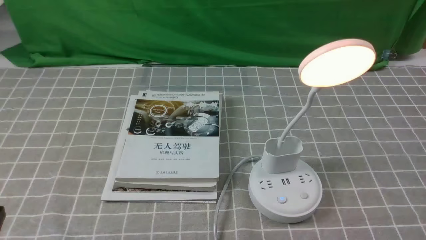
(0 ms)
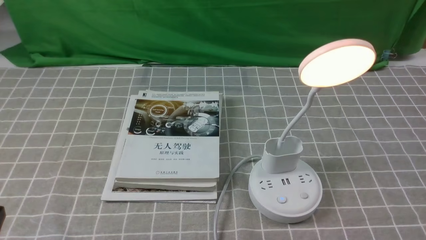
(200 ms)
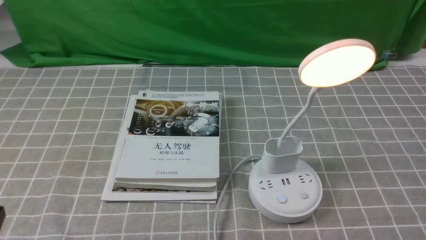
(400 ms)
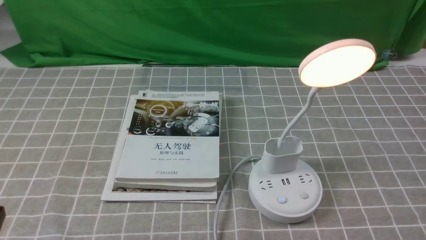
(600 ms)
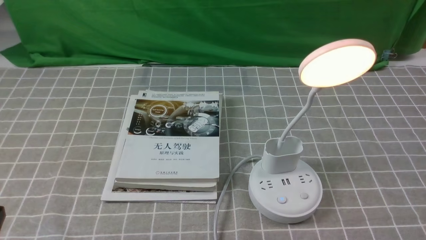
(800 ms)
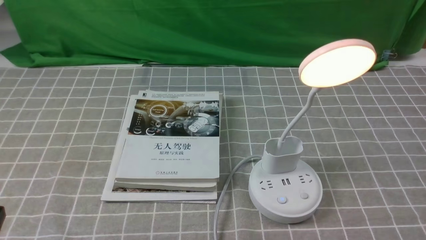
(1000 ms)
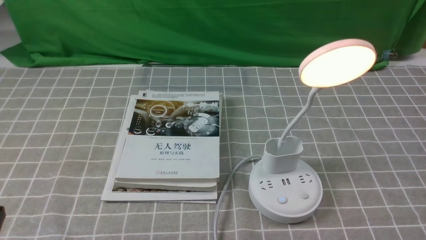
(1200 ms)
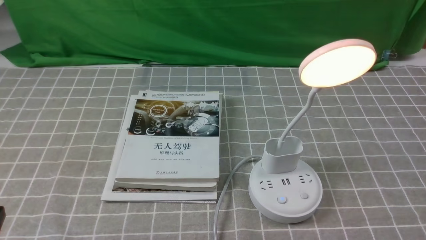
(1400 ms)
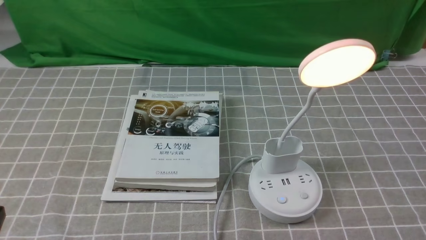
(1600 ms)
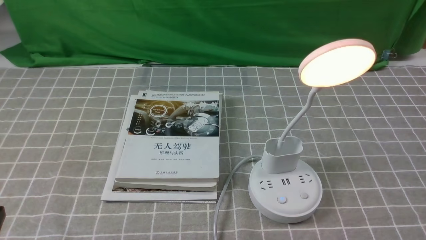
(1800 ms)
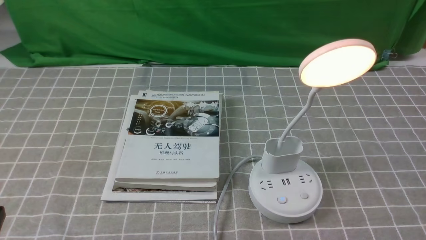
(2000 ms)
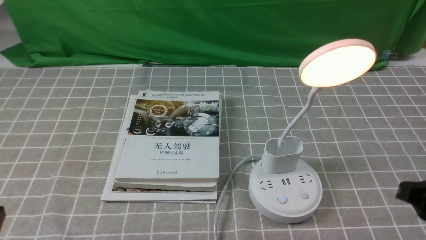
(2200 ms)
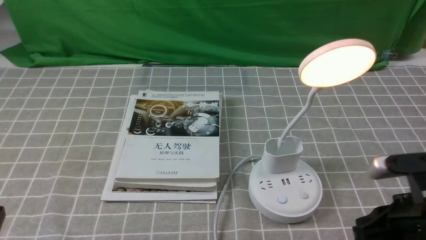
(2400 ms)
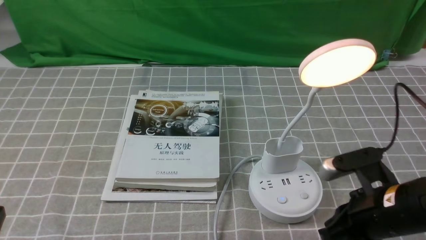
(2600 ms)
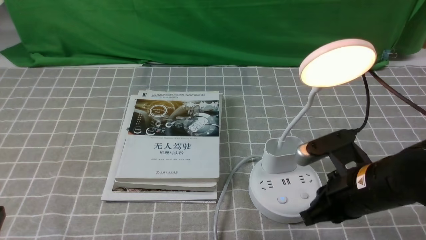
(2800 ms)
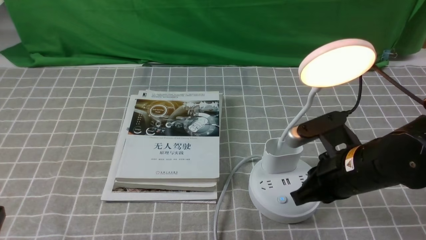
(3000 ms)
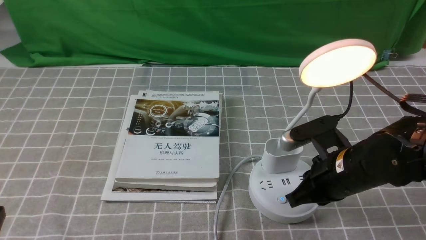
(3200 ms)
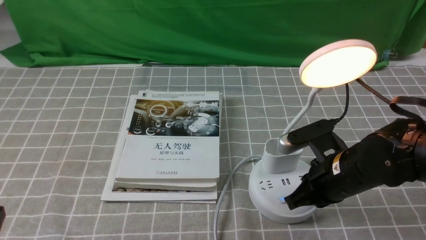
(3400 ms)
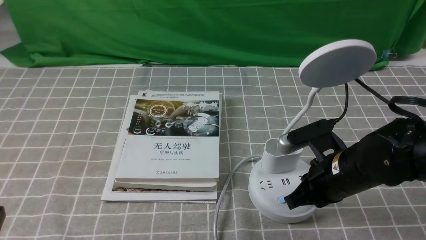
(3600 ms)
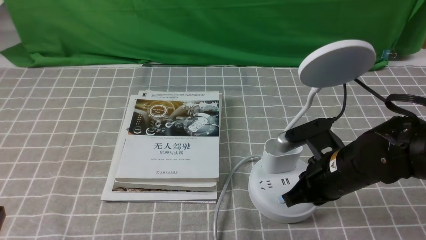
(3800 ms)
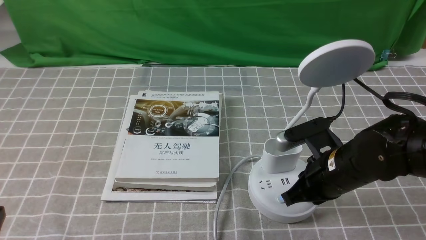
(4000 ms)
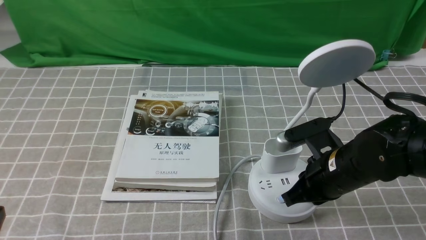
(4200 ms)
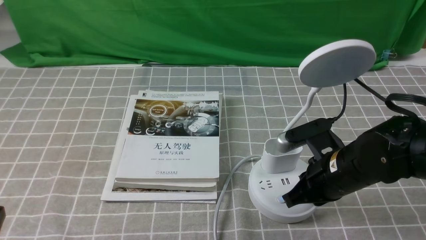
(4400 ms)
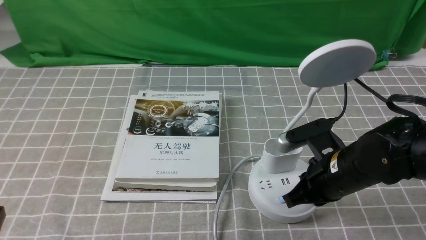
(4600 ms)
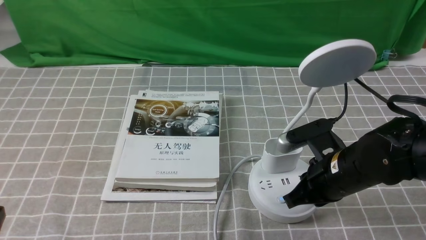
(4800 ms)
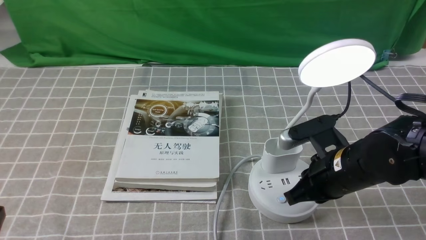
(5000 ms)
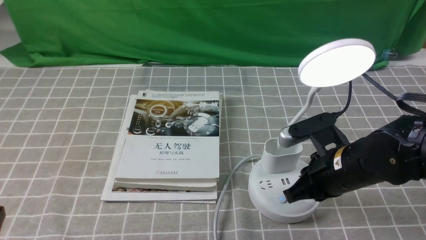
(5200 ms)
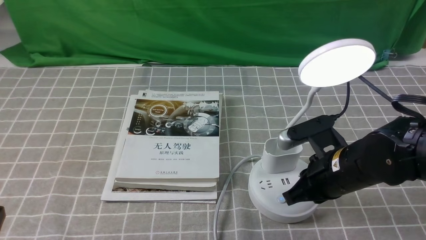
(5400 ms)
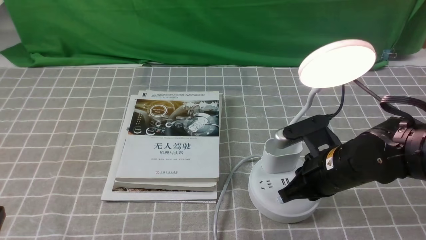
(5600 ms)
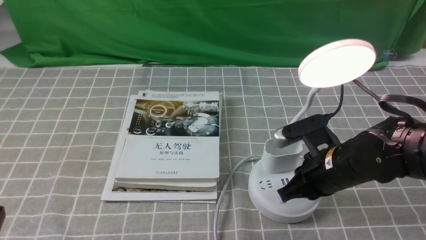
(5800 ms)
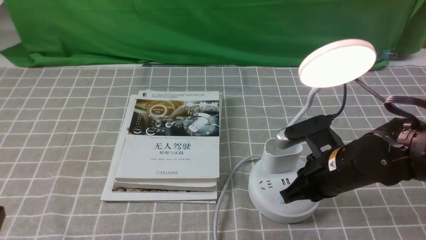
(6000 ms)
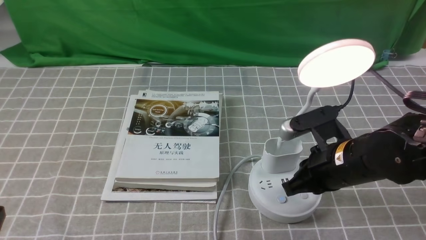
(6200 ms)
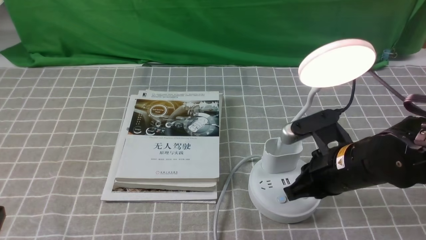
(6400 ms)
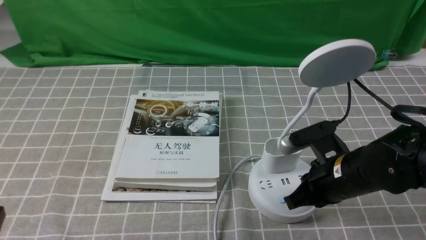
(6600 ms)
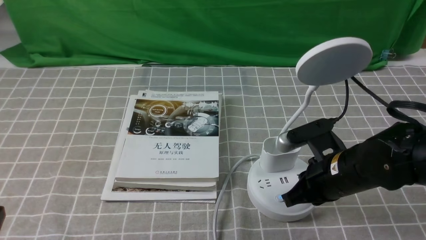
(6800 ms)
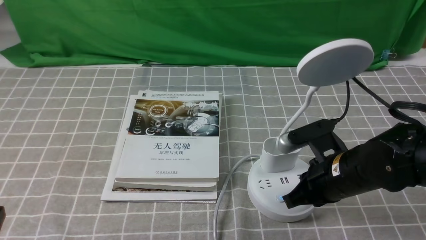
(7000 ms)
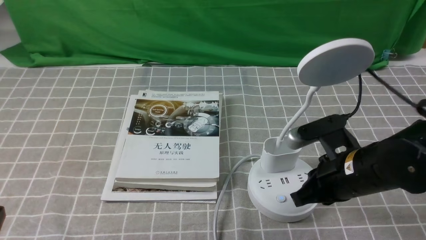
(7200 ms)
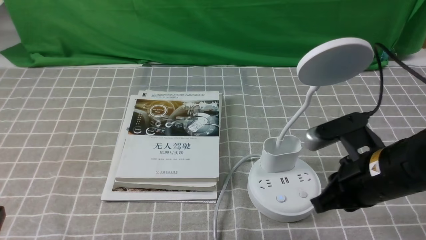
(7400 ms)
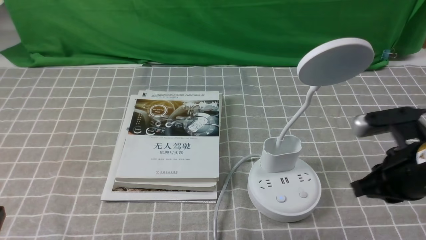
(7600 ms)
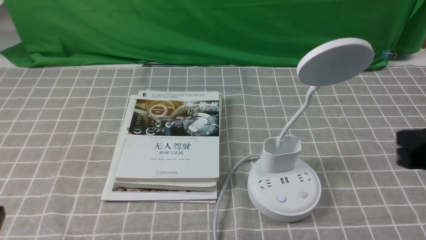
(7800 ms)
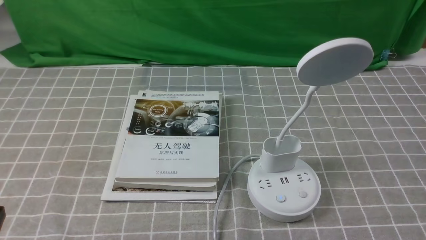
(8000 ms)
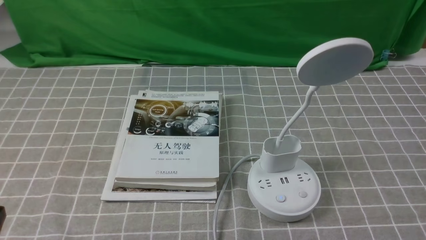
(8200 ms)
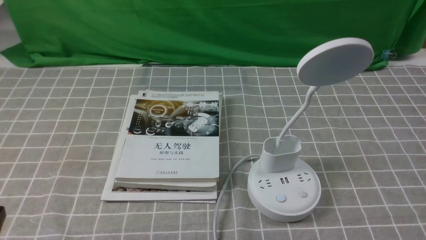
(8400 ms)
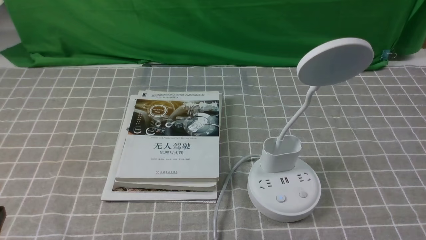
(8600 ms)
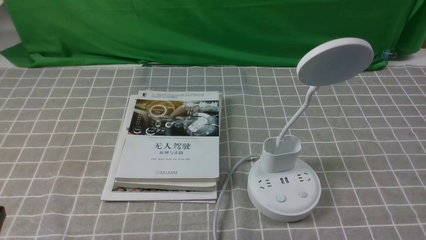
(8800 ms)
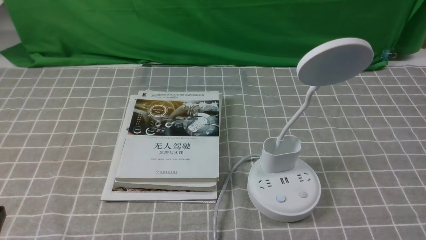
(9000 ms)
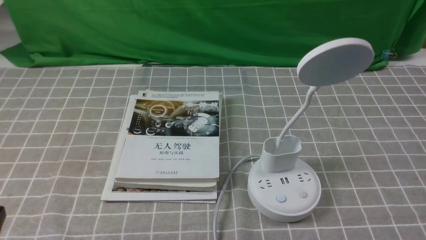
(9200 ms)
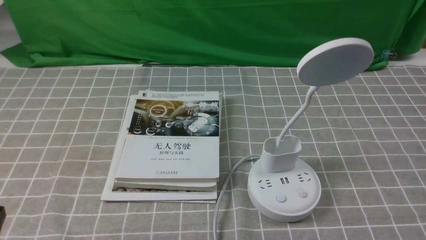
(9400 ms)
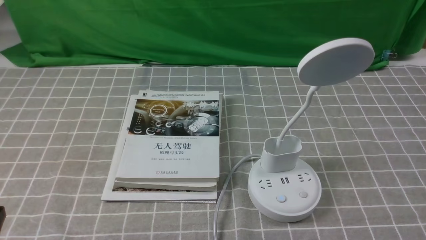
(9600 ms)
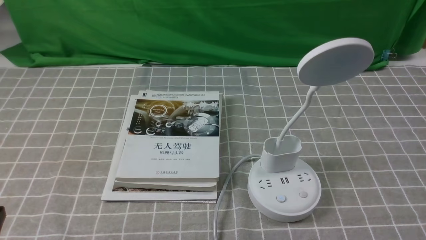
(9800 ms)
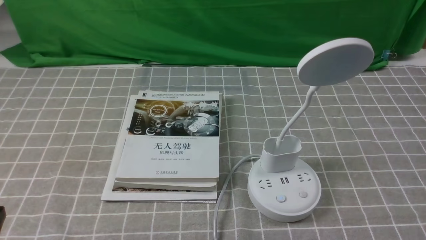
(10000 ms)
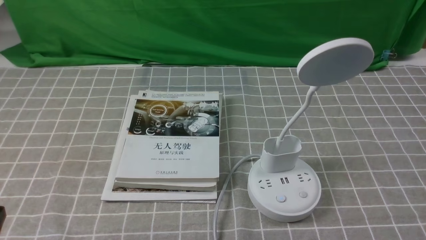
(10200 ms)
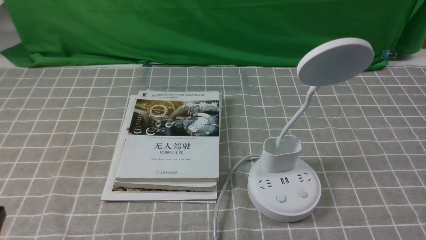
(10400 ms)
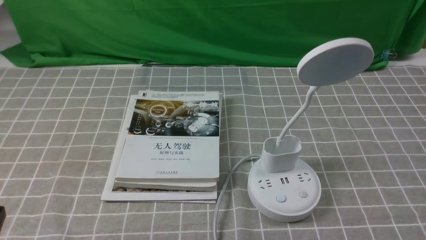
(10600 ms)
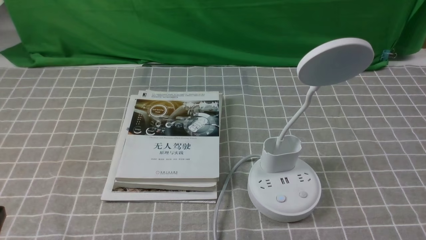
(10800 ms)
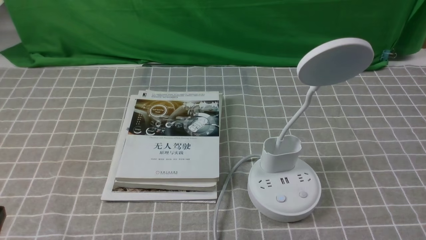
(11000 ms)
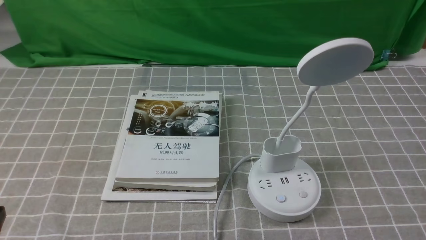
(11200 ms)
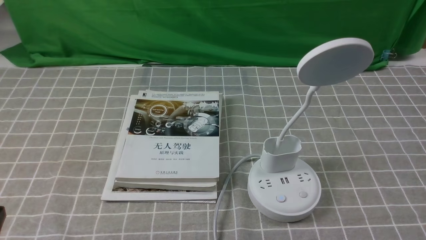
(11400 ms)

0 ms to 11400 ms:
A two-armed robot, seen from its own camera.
Task of the whole recording: turn off the desk lamp on the grey coffee tablecloth by hand.
Step, 0 ms to 7200 ms: use the right arm to press the button switch on the lamp holder.
1400 ms to 2800 ms: The right gripper travels forward and to the left by about 20 cm.
2800 ms to 4200 ms: The right gripper closes its fingers.
4200 ms to 5600 ms: The two grippers keep their place.
5600 ms to 7200 ms: The right gripper opens its fingers.
7200 ms to 8600 ms: The right gripper heads backward and to the right, covering roughly 20 cm.
10000 ms to 11400 ms: Both grippers stay about where they are.

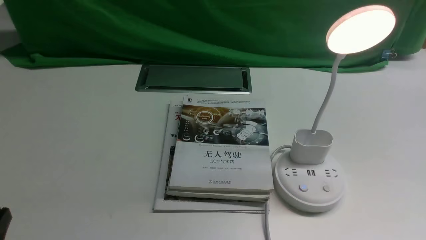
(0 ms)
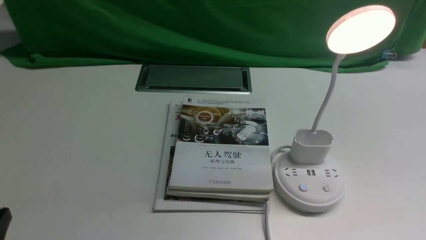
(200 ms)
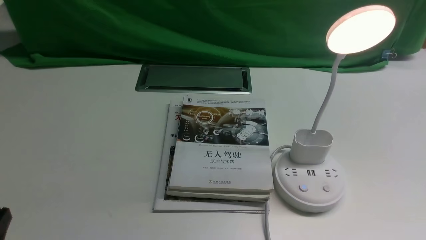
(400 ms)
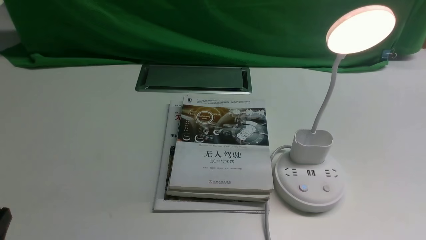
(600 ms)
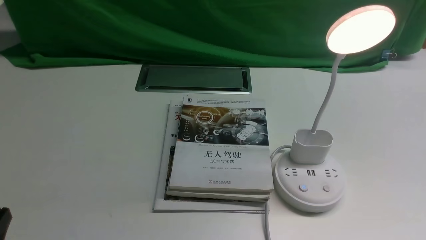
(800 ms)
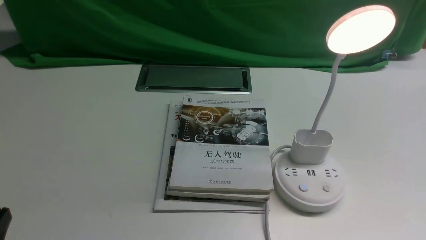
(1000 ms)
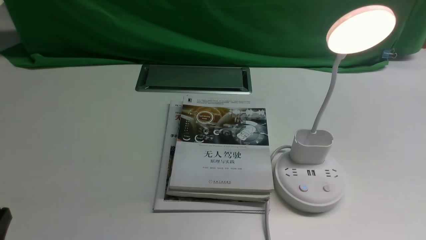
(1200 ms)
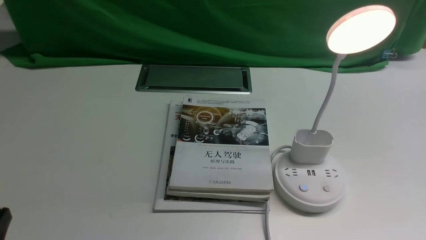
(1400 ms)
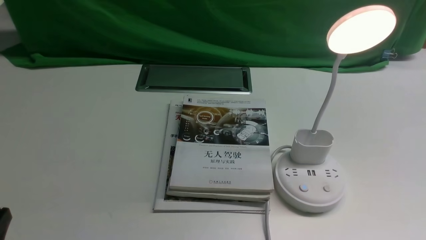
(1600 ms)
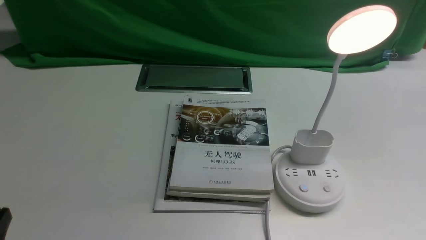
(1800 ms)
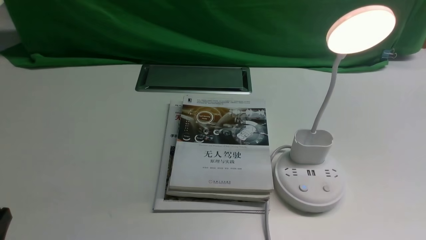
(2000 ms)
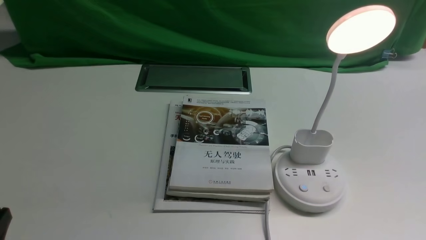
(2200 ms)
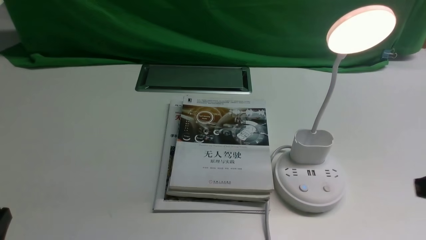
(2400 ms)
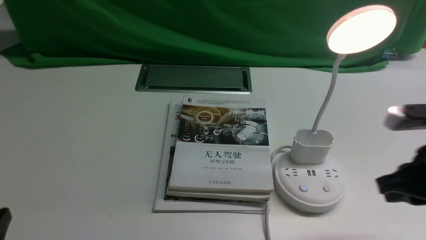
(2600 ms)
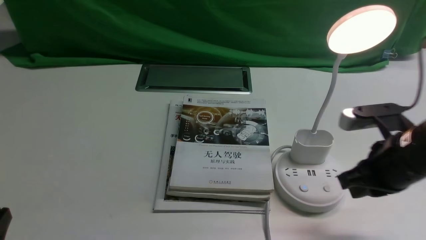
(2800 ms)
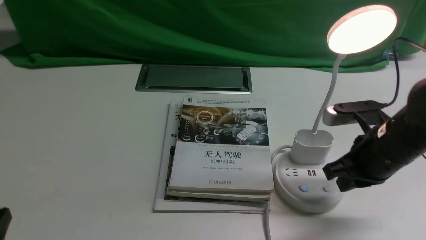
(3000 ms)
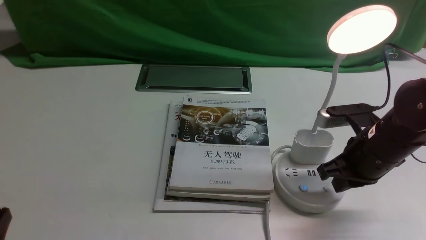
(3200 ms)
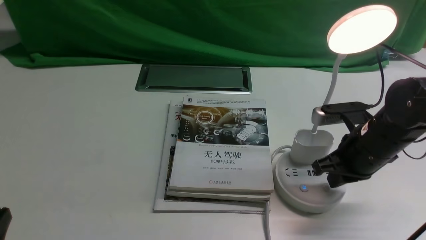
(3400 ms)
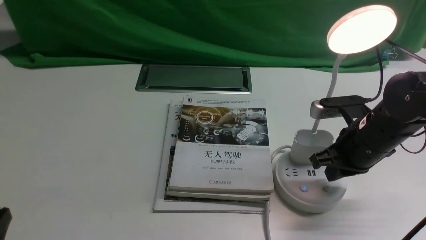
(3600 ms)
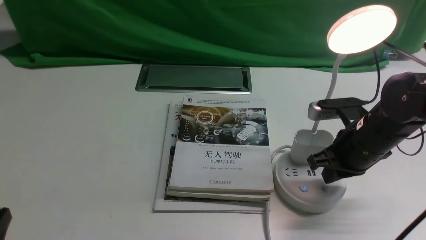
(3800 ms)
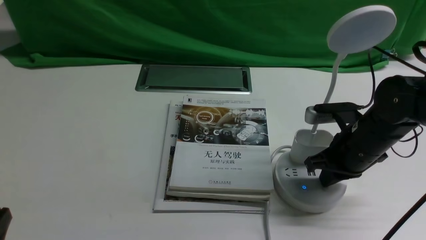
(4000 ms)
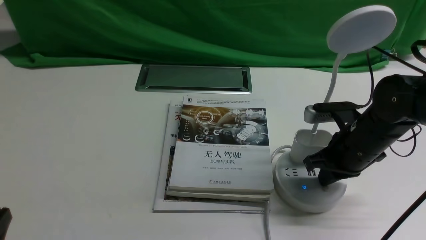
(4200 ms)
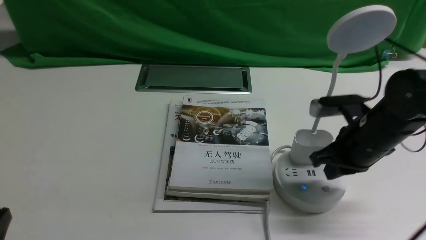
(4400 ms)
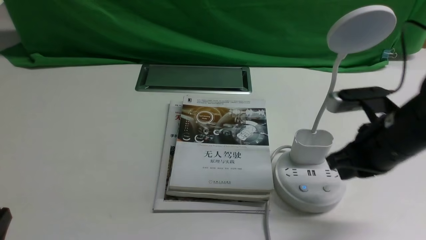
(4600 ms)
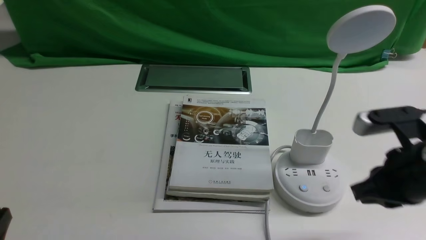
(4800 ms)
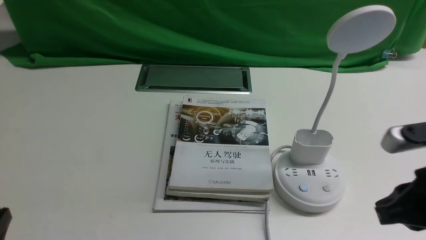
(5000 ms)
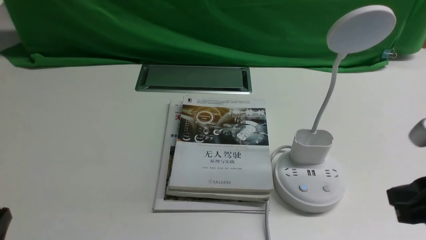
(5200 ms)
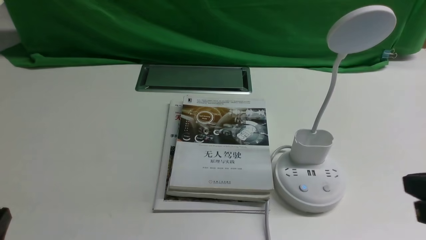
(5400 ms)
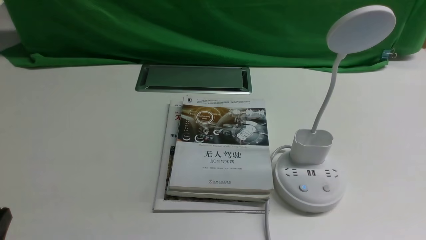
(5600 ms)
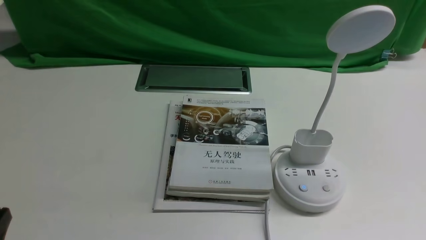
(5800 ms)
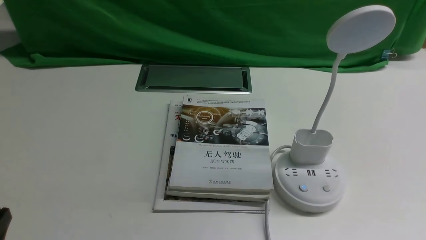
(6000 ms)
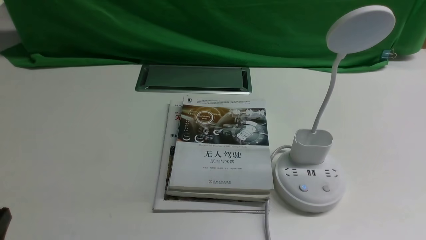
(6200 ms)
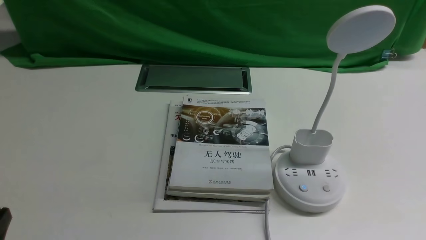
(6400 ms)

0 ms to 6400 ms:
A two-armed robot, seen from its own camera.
Task of the whole recording: turn off the desk lamp on the white desktop by hand.
Step, 0 ms to 4400 ms: use the right arm to press the button switch on the lamp holder.
1600 ms to 3200 ms: The right gripper moves forward and to the left, approximately 25 cm, and closes its fingers.
3200 ms to 4800 ms: The right gripper moves backward and upward, about 10 cm.
4800 ms to 6400 ms: The right gripper is displaced backward, to the right and downward by about 20 cm.
